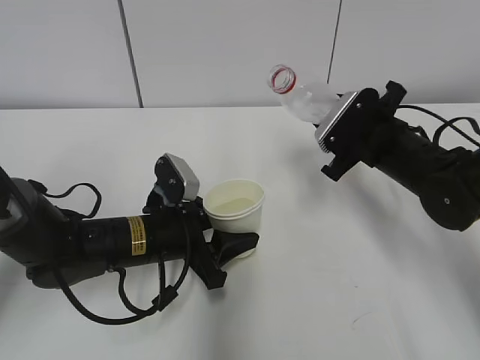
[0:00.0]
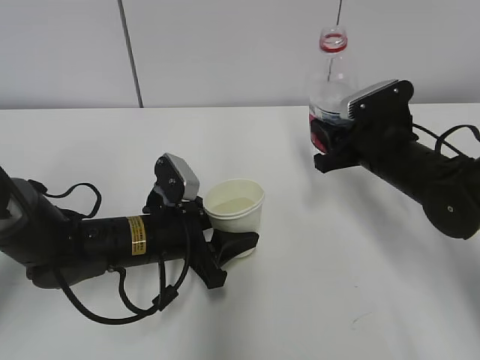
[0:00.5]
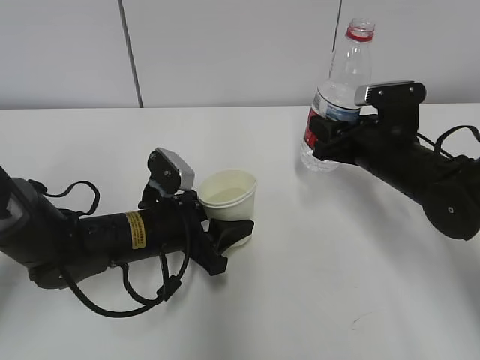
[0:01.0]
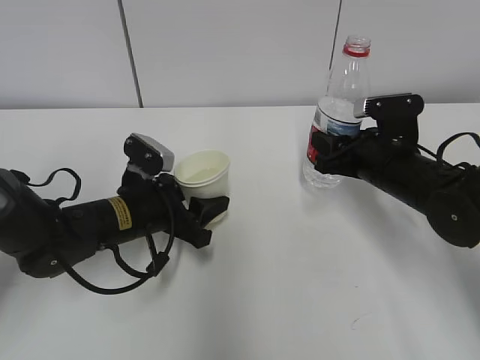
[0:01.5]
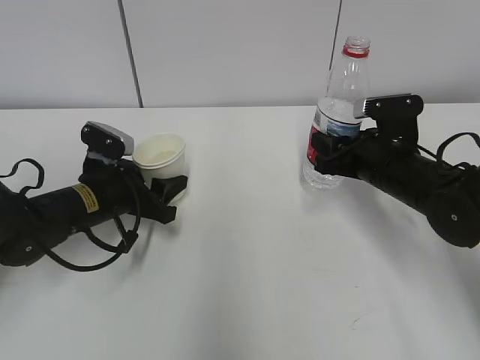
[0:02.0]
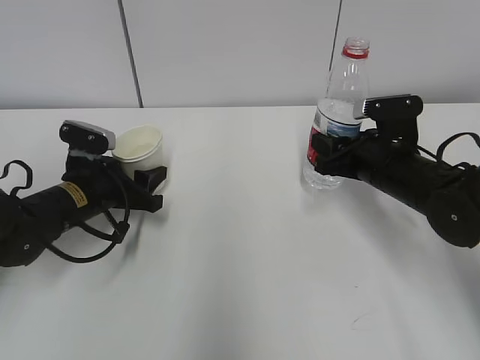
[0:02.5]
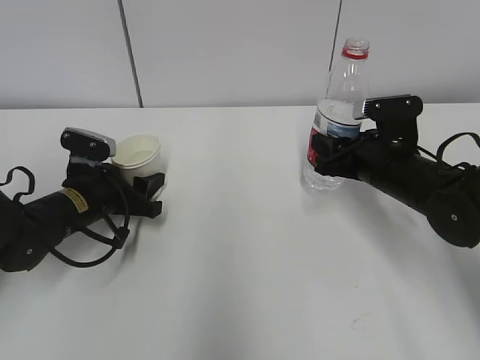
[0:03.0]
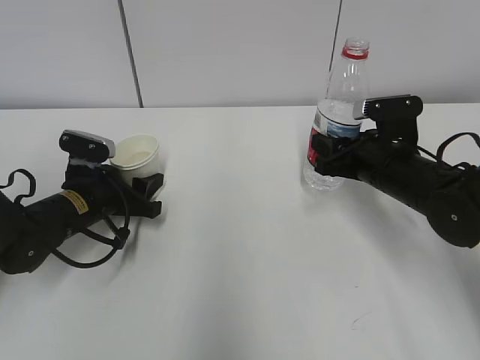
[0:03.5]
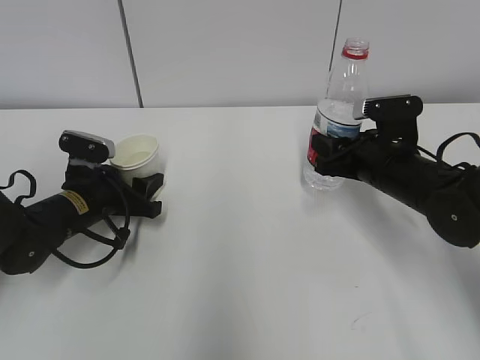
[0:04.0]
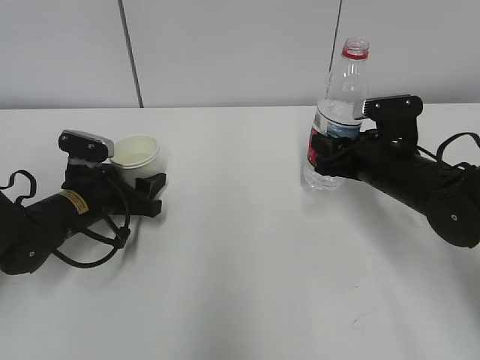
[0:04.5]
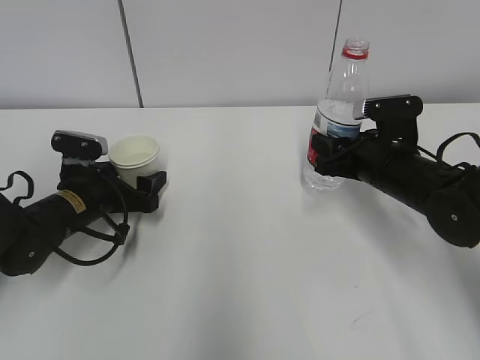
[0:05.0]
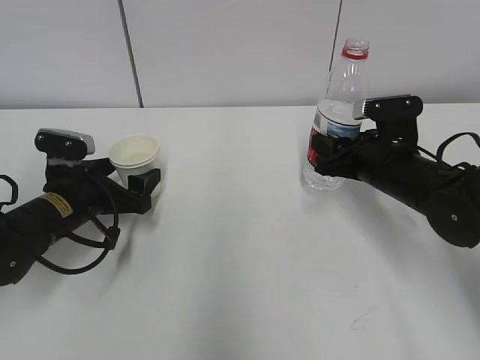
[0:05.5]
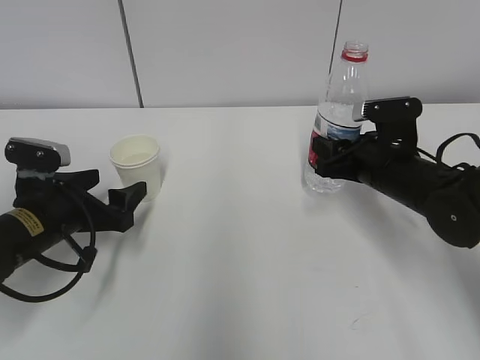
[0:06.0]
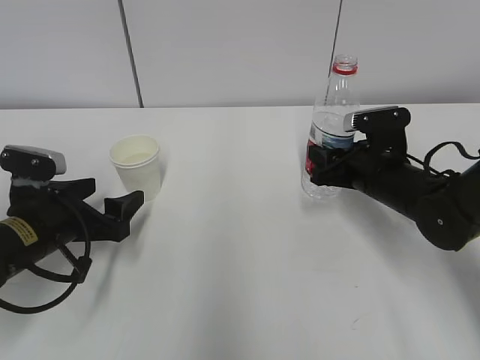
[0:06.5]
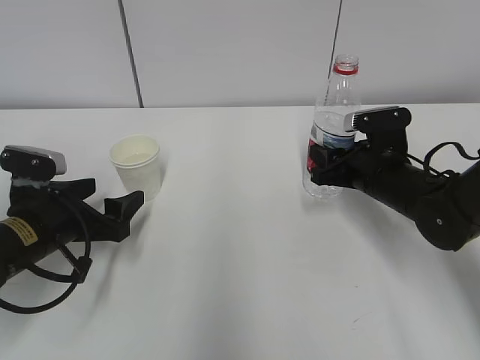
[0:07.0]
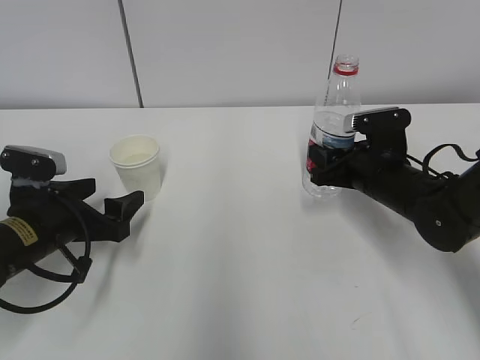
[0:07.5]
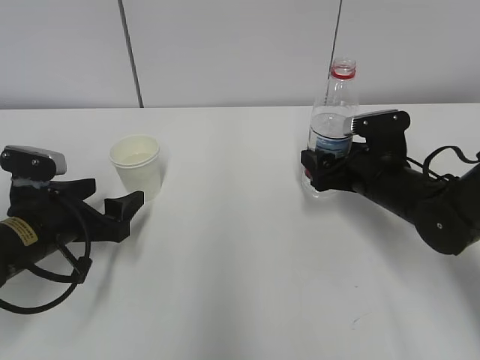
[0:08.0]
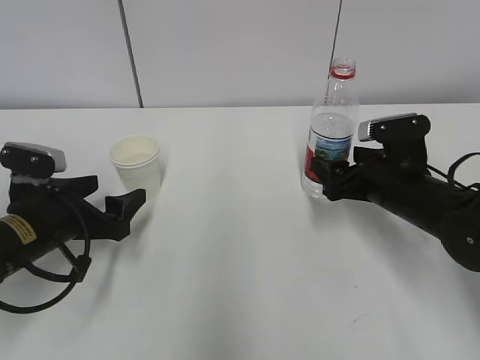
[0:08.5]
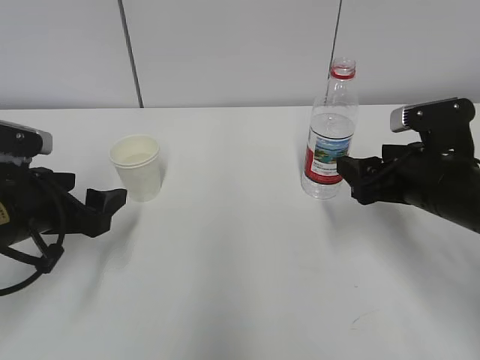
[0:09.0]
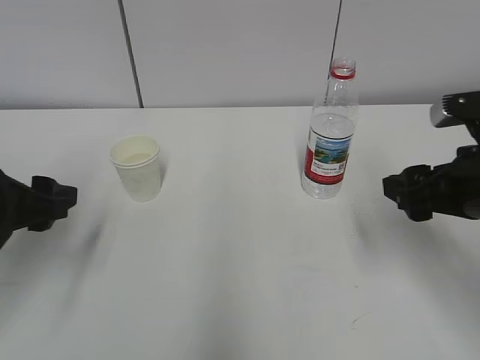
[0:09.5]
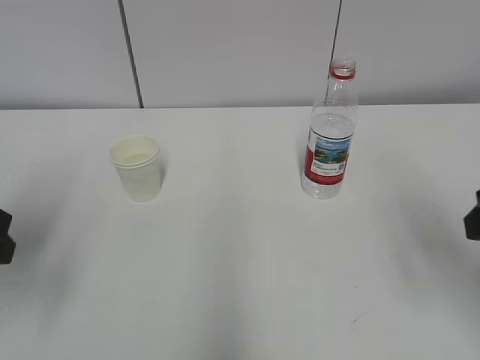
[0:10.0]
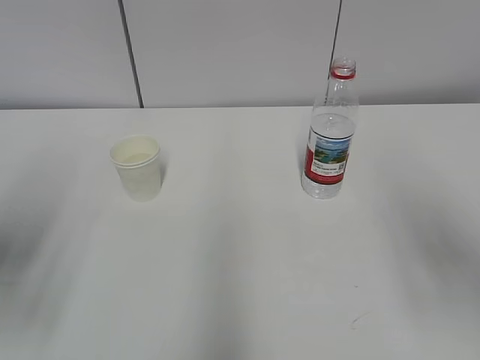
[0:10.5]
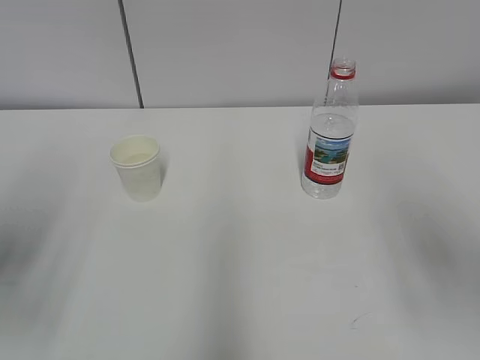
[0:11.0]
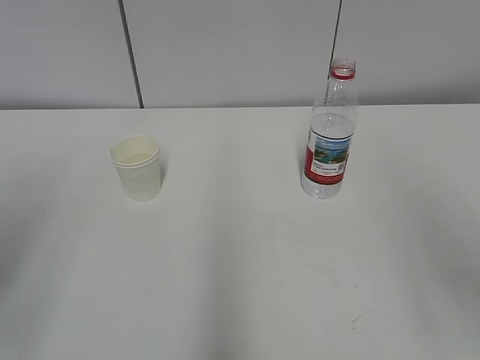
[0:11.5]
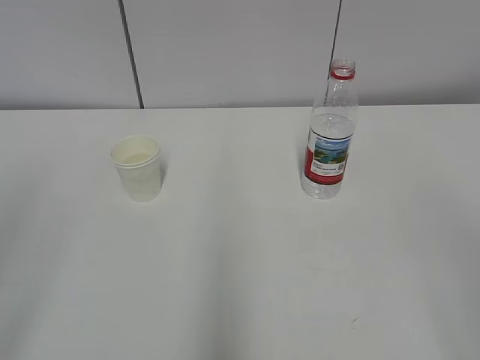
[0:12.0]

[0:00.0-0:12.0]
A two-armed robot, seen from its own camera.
0:00.0 to 0:02.0: The left gripper is displaced to the left and forward by approximately 10 cm.
0:02.0 to 0:04.0: The grippers make only small movements.
0:04.0 to 0:06.0: The left gripper is displaced backward by roughly 5 cm, and opens.
0:06.0 to 0:08.0: The right gripper opens up.
0:08.0 to 0:10.0: The right gripper is displaced backward and upward by some 25 cm. The left gripper heads upward and backward, covering about 15 cm.
0:10.0 to 0:12.0: The left gripper goes roughly 20 cm backward and upward.

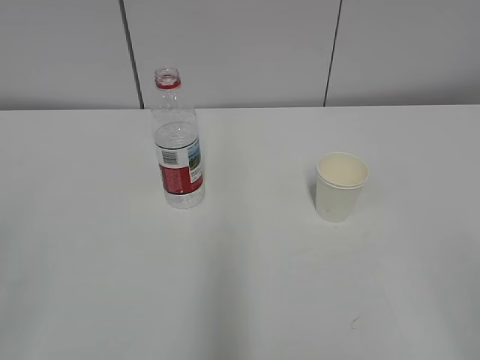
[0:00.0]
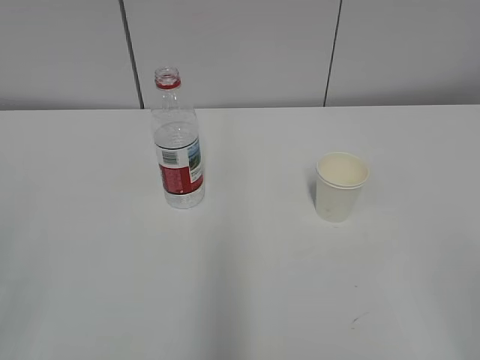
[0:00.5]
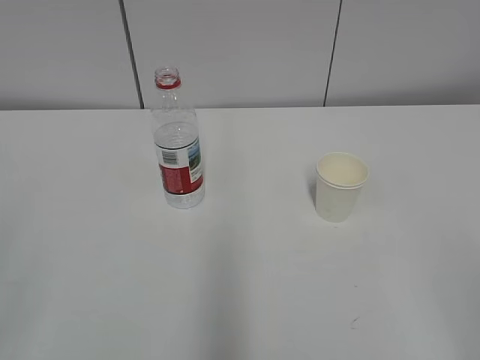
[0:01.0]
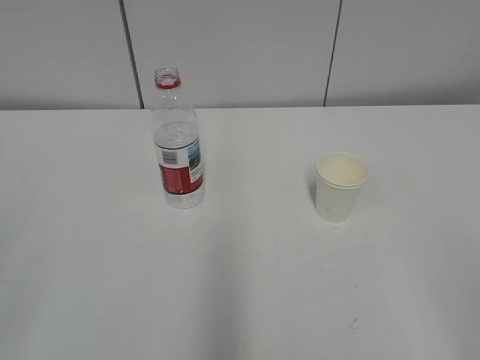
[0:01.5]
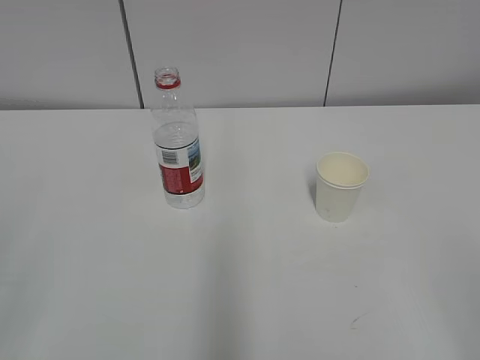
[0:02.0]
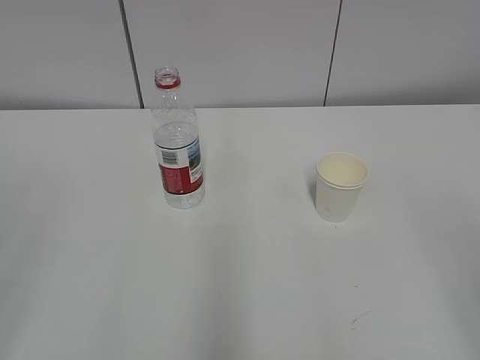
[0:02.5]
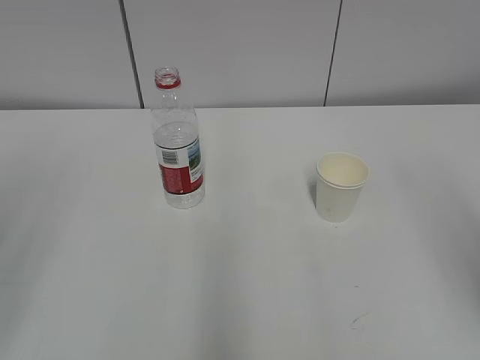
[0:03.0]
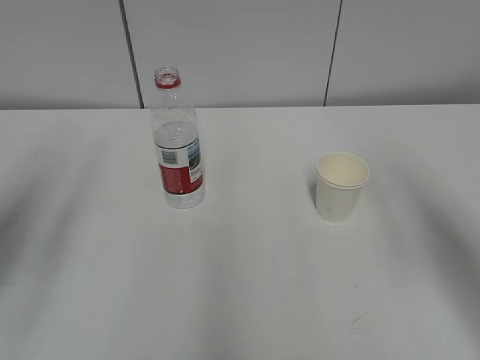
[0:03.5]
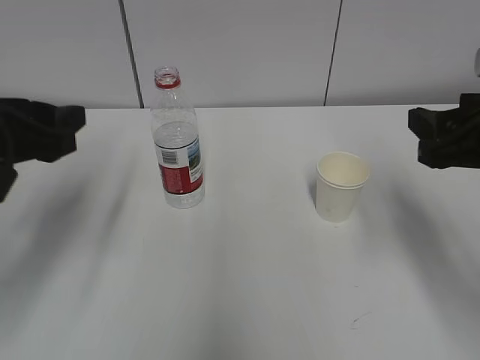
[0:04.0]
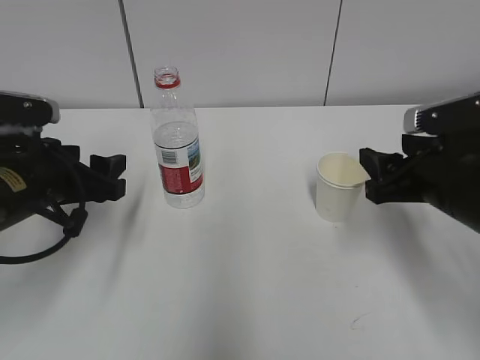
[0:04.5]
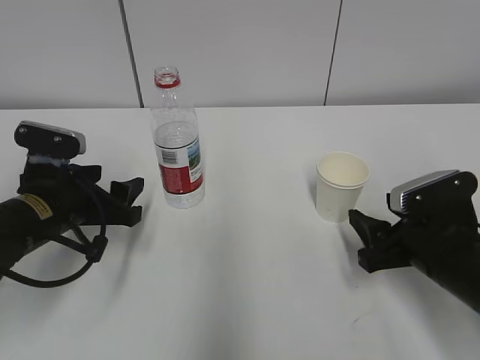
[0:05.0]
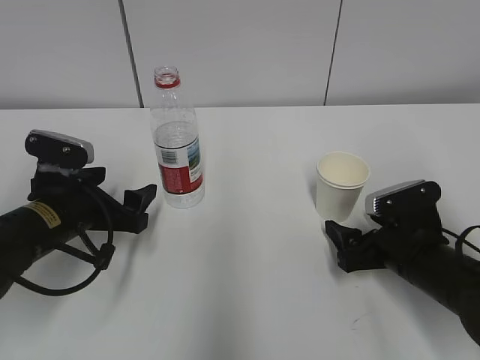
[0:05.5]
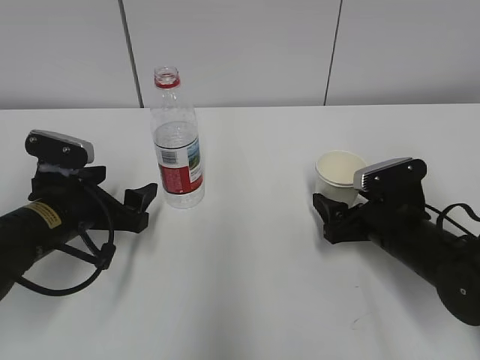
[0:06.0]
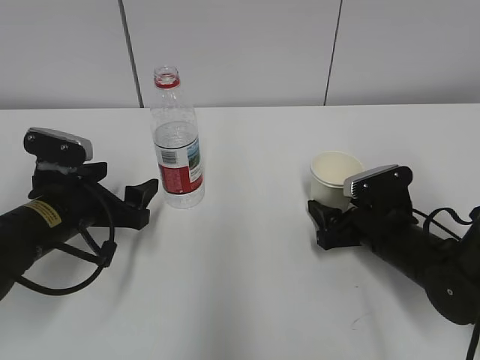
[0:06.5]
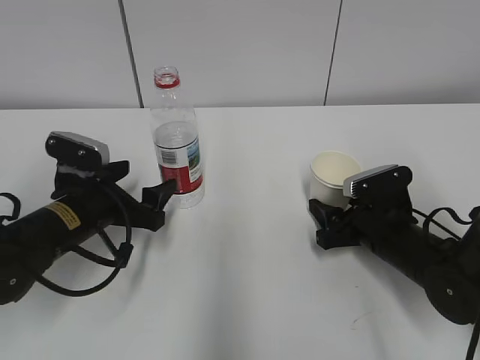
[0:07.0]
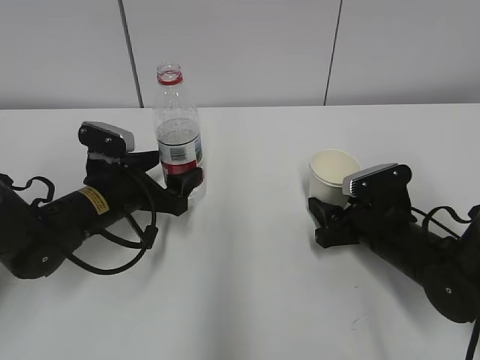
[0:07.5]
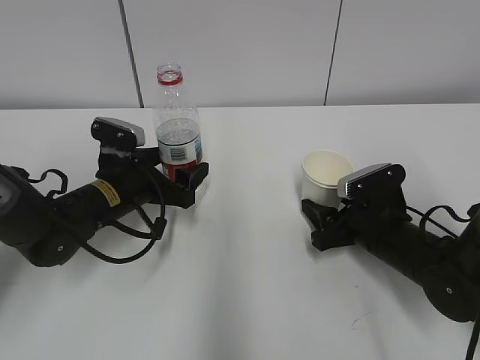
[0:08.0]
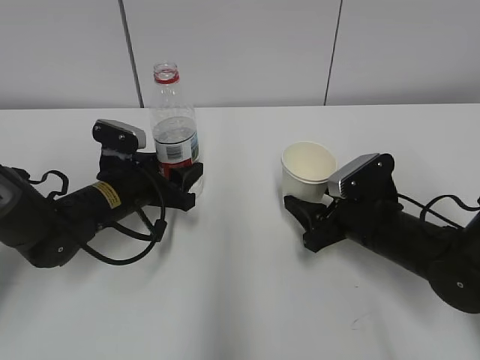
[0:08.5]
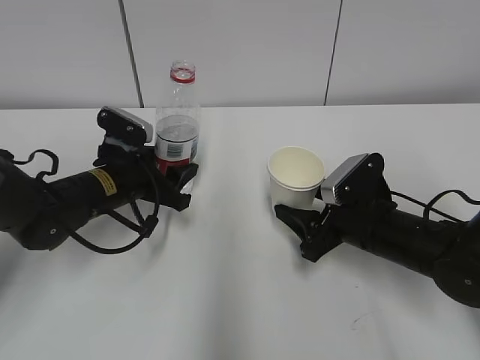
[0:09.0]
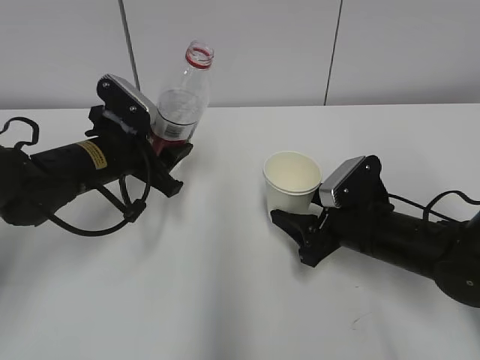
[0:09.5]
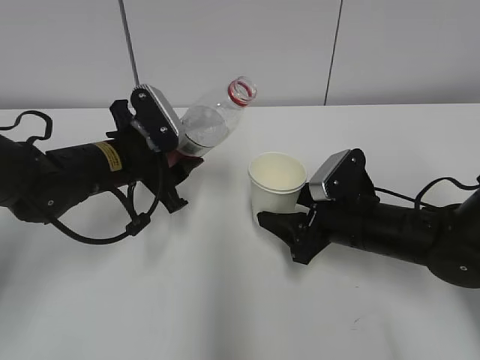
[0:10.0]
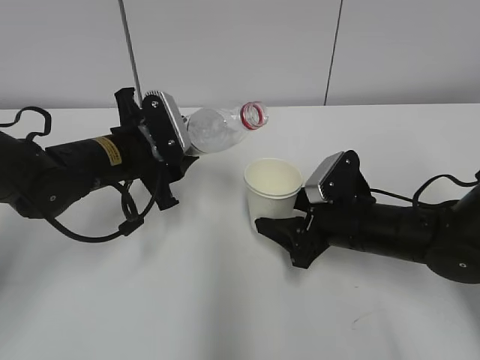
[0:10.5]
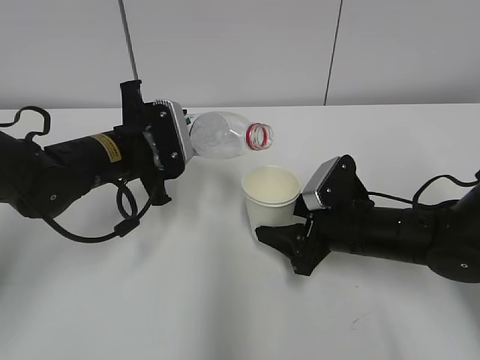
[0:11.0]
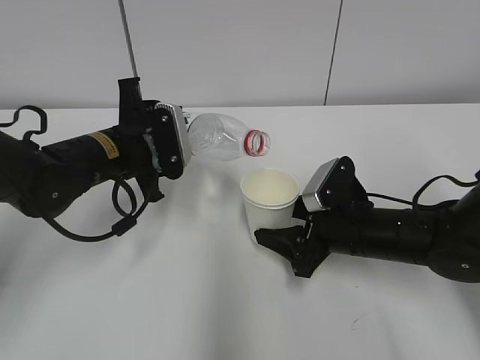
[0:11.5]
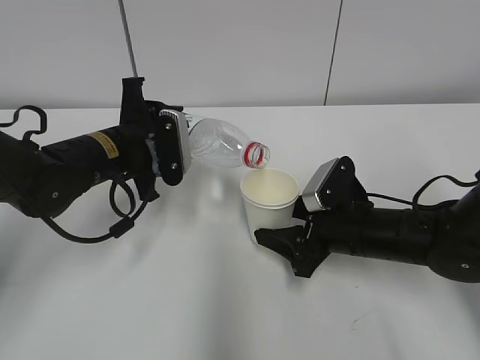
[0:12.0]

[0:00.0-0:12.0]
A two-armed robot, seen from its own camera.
Step, 0:00.0 to 0:06.5: Grab the paper cup with the right hand.
Step, 0:07.5 to 0:10.5: Lift the paper cup with the right hand.
0:02.0 to 0:04.0: Both grippers move forward, roughly 25 cm.
0:04.0 to 0:06.0: The left gripper goes roughly 15 cm downward, and opens, while the right gripper is displaced downward and forward by roughly 20 cm, and opens.
0:06.0 to 0:08.0: The right gripper closes. The left gripper shifts approximately 5 cm forward.
0:08.0 to 0:10.0: The left gripper travels upward by roughly 5 cm, and closes its fingers.

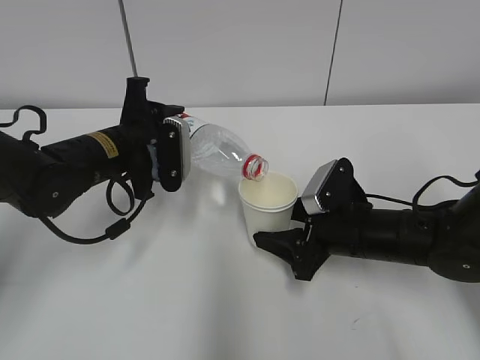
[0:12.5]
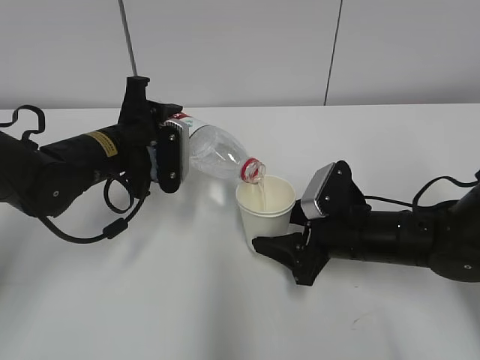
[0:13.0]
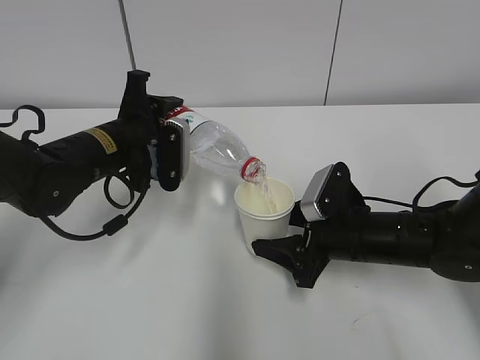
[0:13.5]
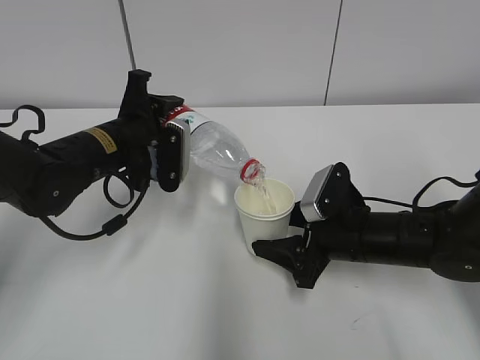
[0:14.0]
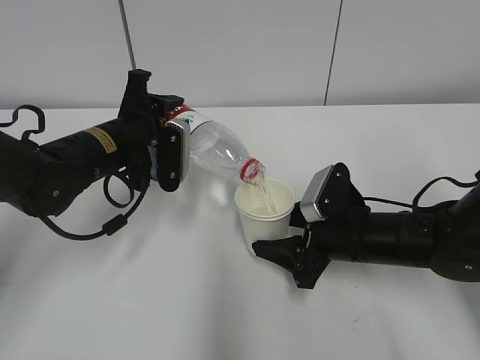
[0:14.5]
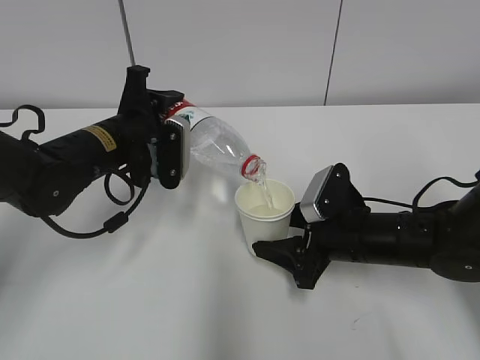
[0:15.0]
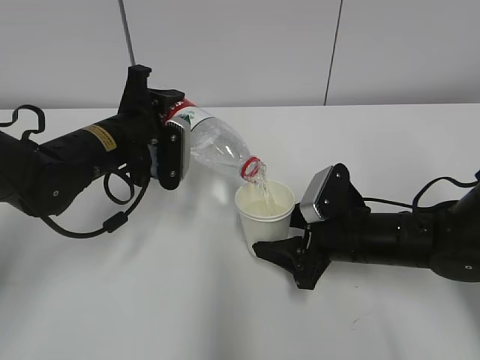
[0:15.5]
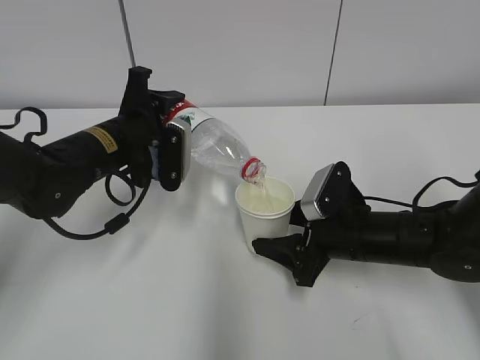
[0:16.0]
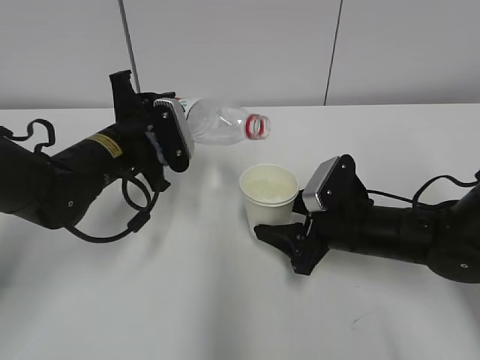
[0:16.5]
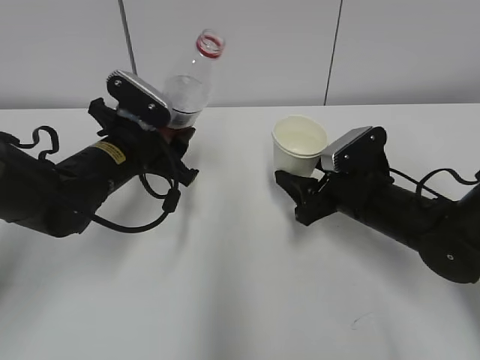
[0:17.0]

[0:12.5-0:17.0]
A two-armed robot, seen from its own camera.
Step, 0:14.0 to 0:15.0: Collect water with the left hand.
0:12.5 to 0:14.5: The grippers make only small movements.
